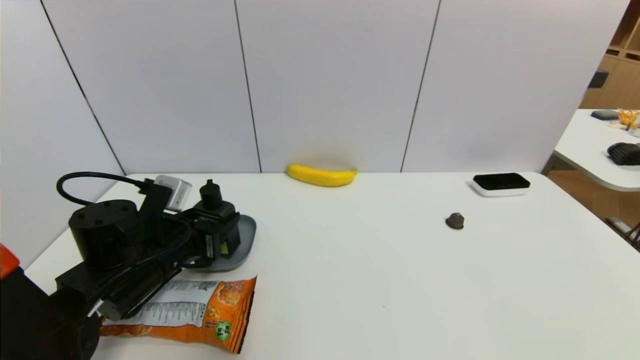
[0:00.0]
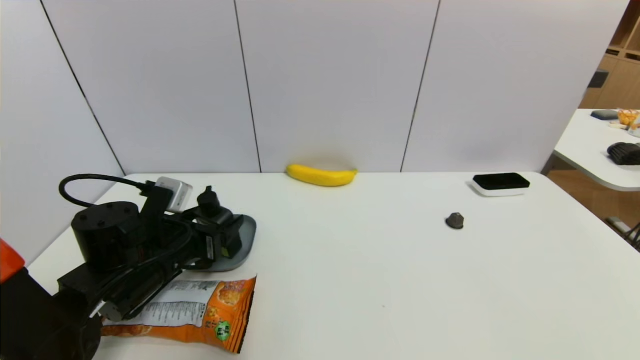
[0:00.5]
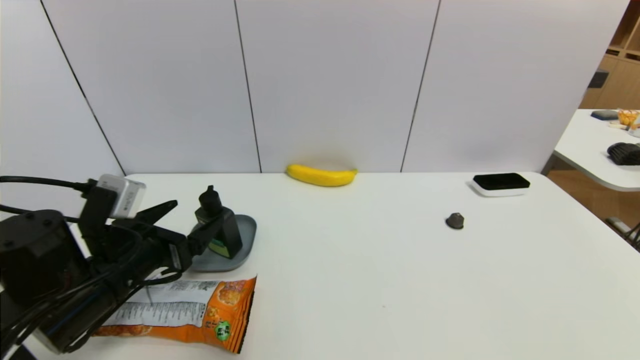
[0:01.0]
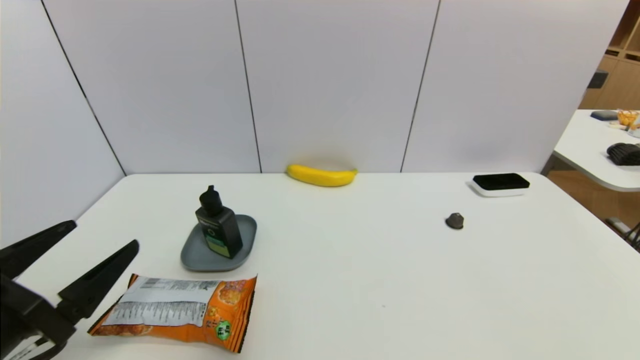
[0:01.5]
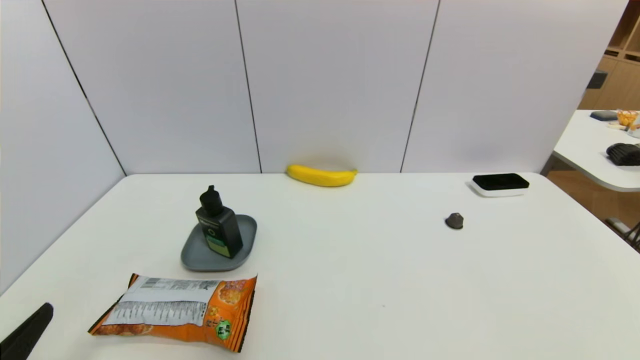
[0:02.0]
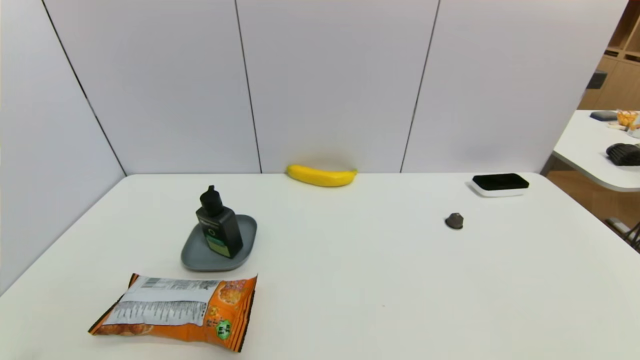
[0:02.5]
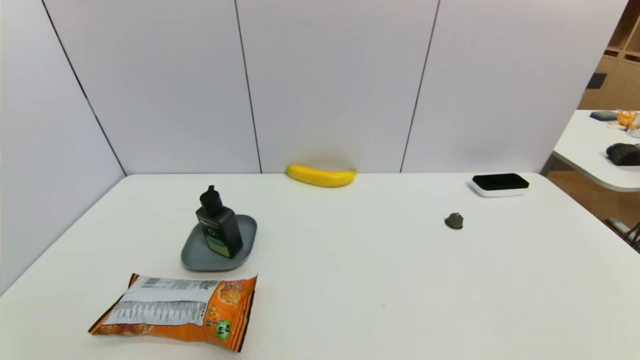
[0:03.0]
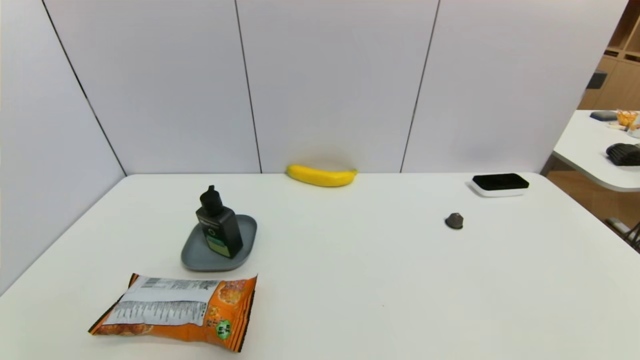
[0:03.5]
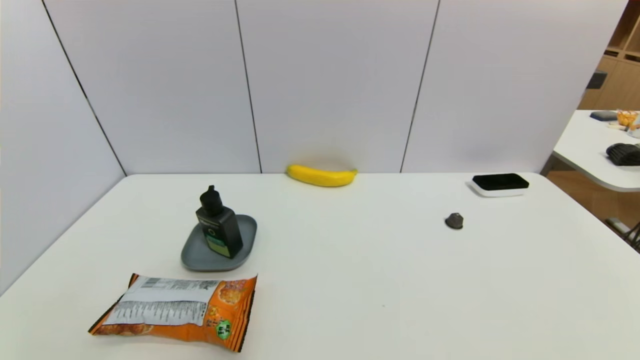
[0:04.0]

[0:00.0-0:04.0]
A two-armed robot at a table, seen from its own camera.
Task of the whole recording: use a gripper to pick the target object and place on the dish.
0:00.0 to 0:02.0: The left gripper moves backward, roughly 25 cm, and opens its fingers.
0:02.0 to 0:04.0: The left gripper is displaced downward by some 10 cm.
